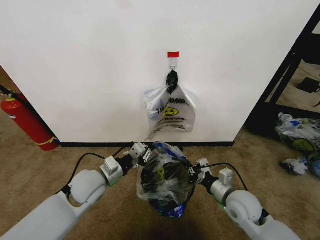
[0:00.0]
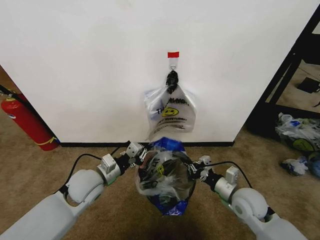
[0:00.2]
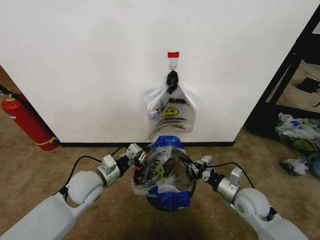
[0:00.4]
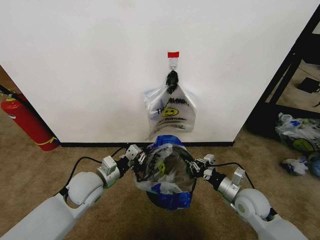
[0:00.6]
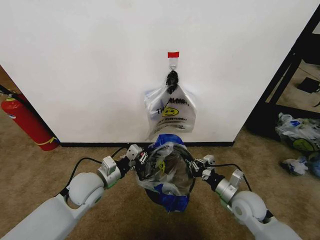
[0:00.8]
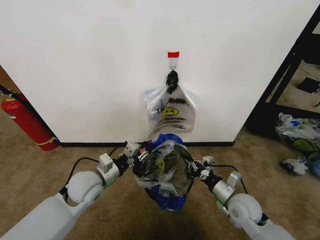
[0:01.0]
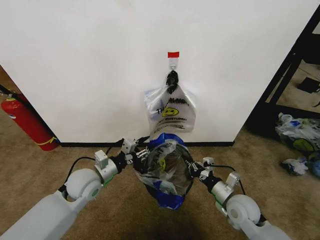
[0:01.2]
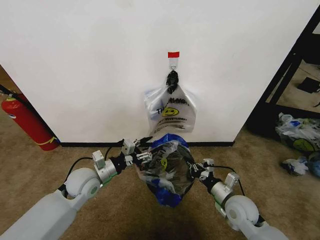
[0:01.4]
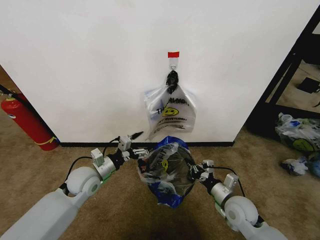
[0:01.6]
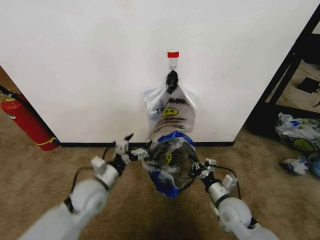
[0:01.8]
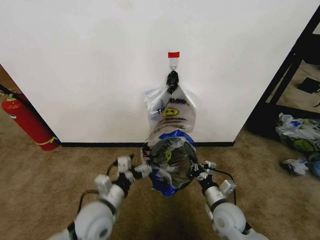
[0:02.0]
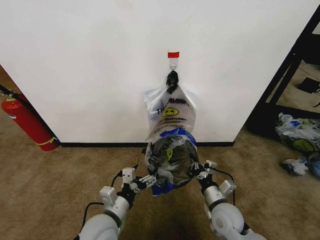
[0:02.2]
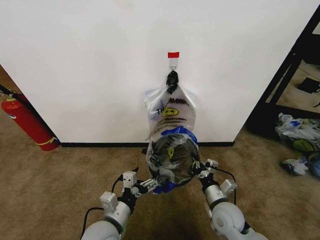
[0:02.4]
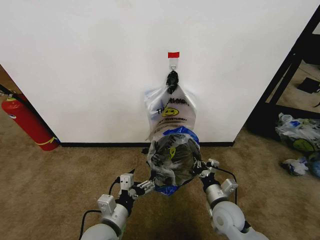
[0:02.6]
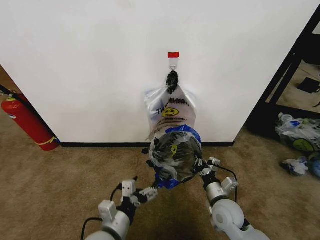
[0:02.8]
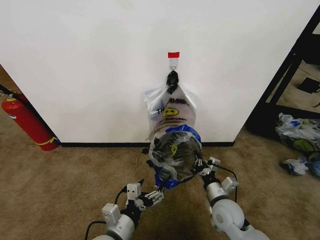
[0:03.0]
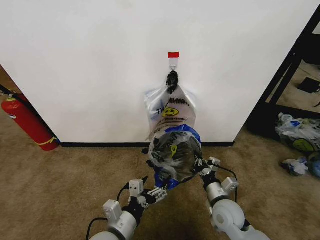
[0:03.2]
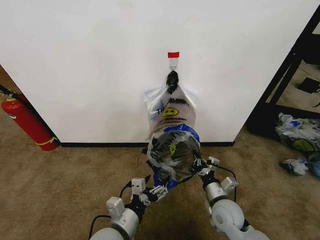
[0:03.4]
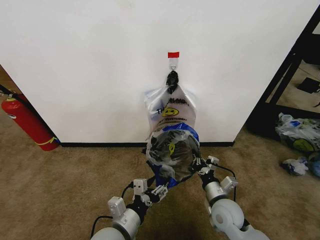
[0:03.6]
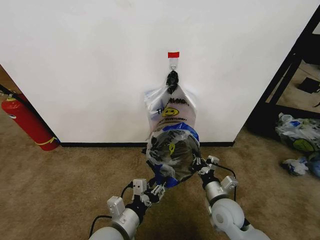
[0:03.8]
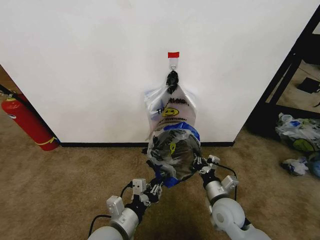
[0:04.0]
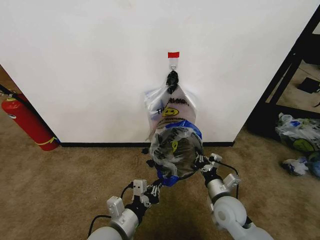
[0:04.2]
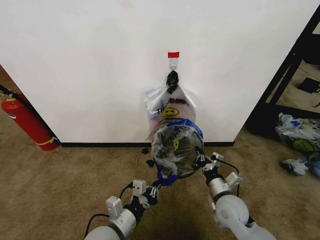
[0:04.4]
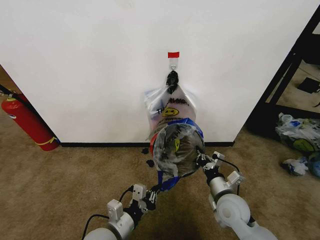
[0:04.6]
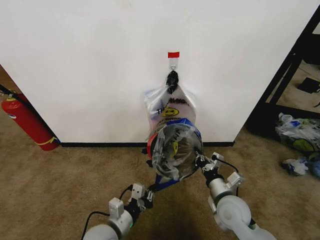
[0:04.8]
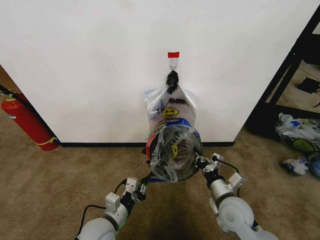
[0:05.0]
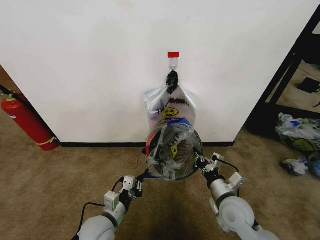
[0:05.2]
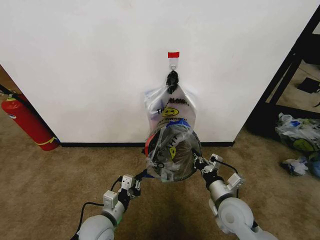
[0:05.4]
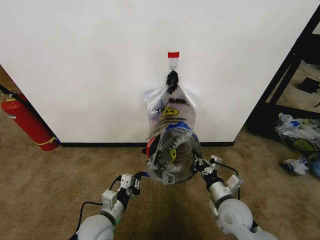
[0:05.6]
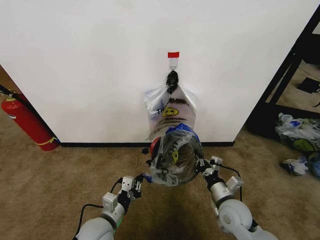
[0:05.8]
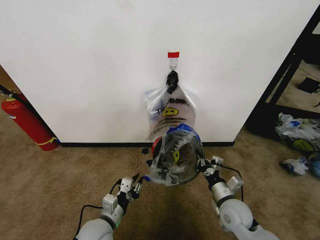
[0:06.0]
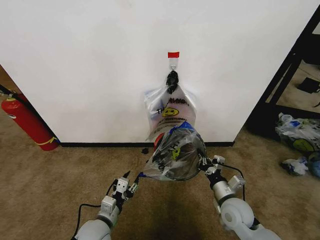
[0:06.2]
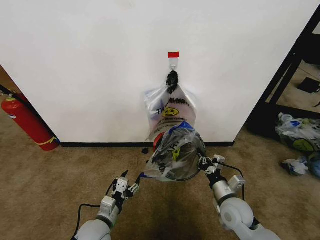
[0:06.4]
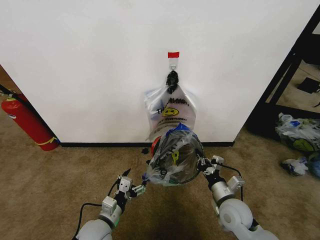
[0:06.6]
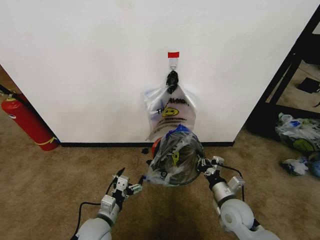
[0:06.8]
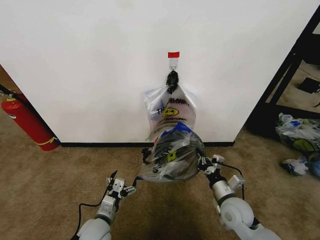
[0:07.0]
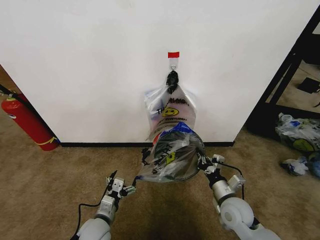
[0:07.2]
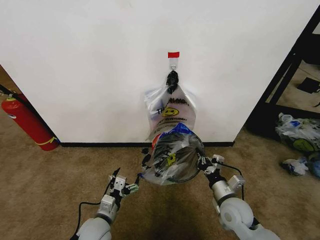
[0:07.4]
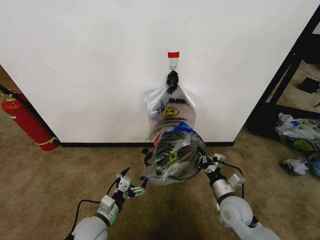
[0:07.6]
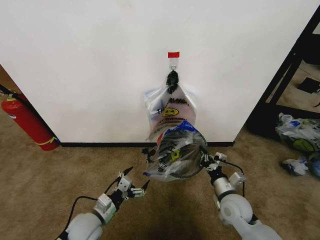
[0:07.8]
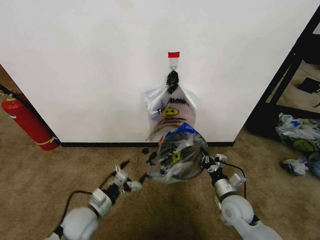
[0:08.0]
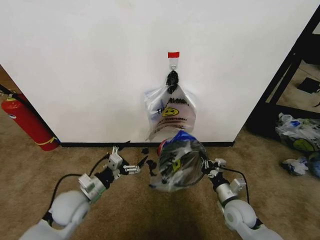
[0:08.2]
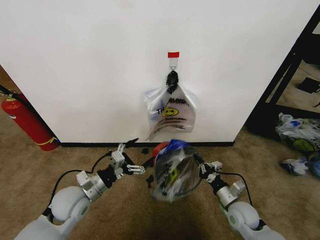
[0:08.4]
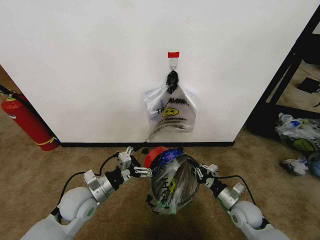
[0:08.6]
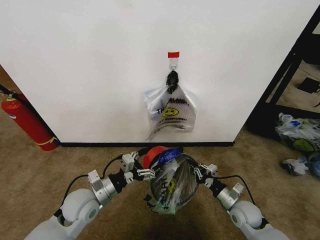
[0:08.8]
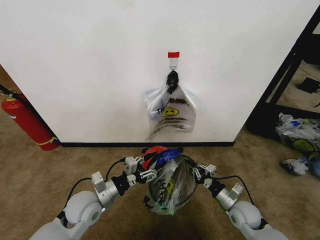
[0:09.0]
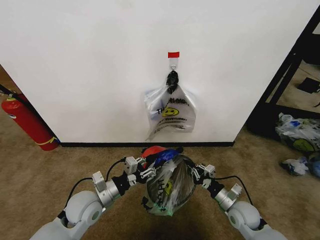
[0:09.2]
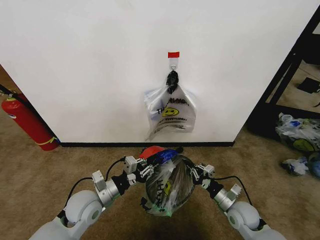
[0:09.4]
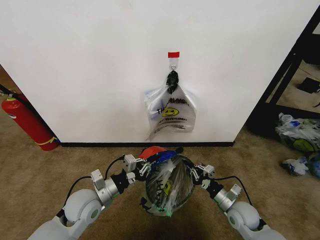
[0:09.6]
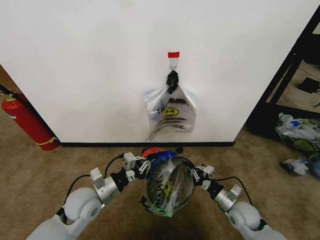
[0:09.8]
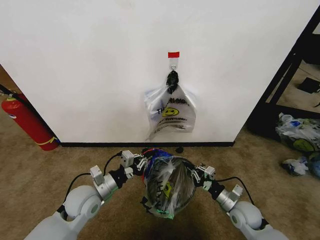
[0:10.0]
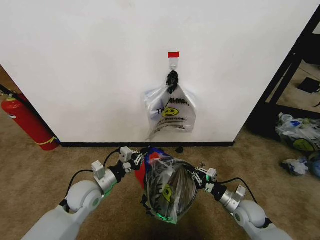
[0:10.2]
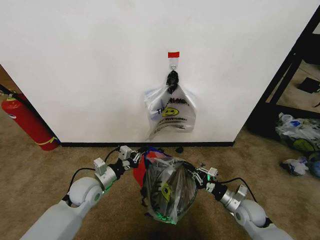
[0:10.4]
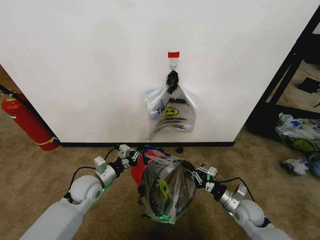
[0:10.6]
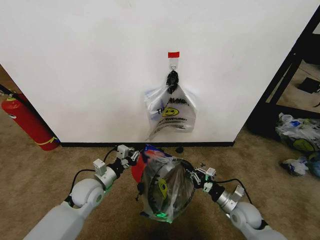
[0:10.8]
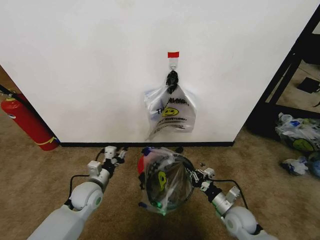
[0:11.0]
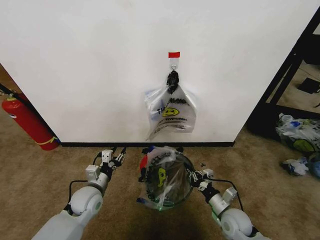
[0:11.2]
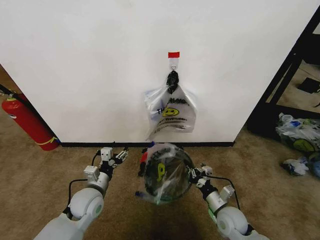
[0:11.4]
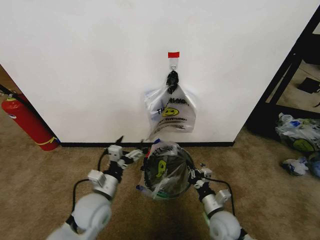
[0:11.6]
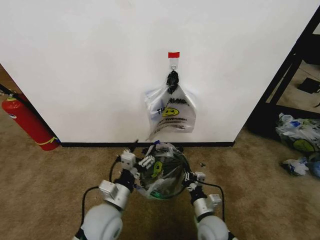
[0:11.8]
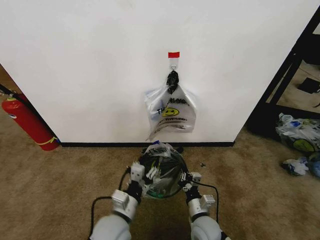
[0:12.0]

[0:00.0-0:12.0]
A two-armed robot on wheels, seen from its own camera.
Task of the whole recording: Pick up the garbage bag from the wall and place it over the trash bin.
0:00.0 to 0:01.6: The left gripper shifts by approximately 5 cm, and opens its fingers.
0:01.6 to 0:03.0: The left gripper travels backward and to the right by some 20 cm.
0:03.0 to 0:04.4: The left gripper closes.
0:04.4 to 0:06.0: The left gripper travels downward by roughly 5 cm.
0:06.0 to 0:07.6: The left gripper opens its fingers.
0:07.6 to 0:09.0: The left gripper heads upward, covering roughly 10 cm, and closes up. The right gripper heads downward and to the right, covering some 10 cm.
0:09.0 to 0:10.4: The left gripper heads forward, covering approximately 5 cm, and closes up.
0:10.4 to 0:12.0: The left gripper shifts roughly 20 cm backward and to the right, and opens its fingers, while the right gripper moves to the left, about 15 cm.

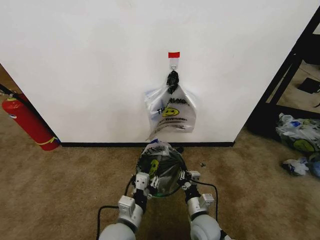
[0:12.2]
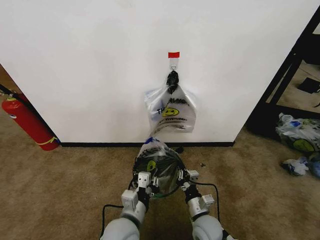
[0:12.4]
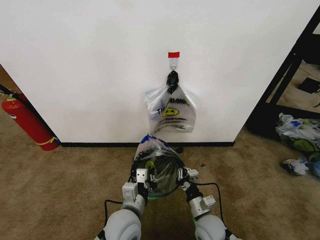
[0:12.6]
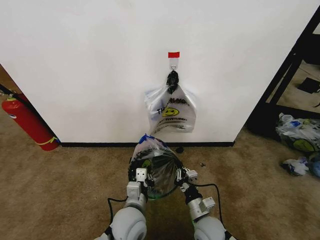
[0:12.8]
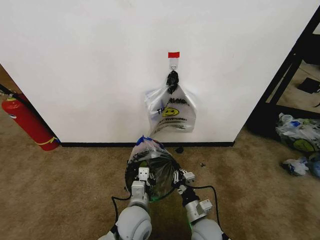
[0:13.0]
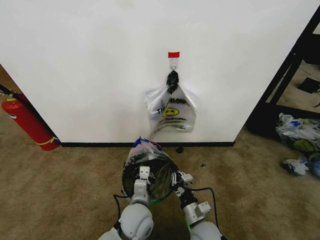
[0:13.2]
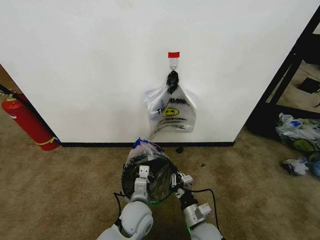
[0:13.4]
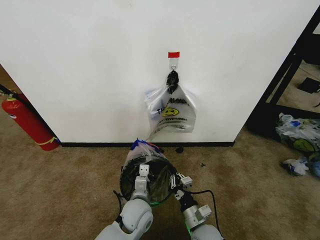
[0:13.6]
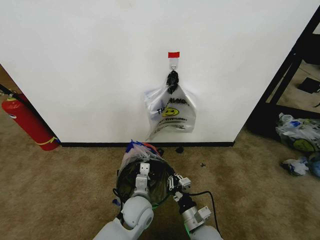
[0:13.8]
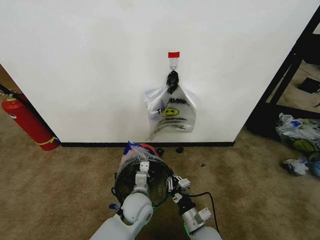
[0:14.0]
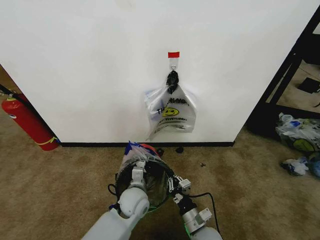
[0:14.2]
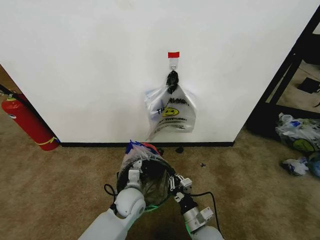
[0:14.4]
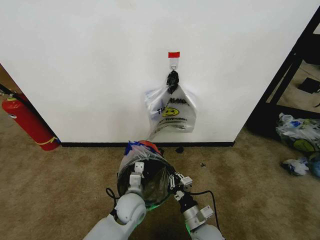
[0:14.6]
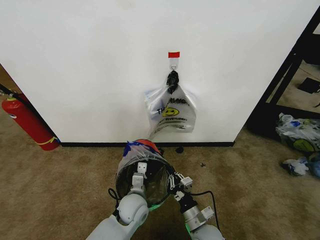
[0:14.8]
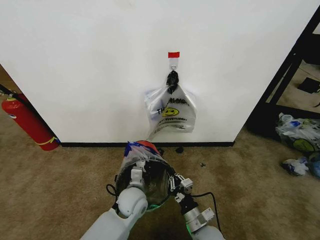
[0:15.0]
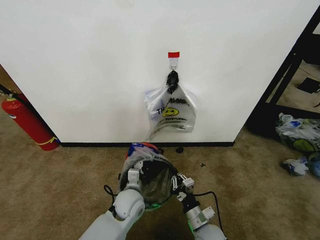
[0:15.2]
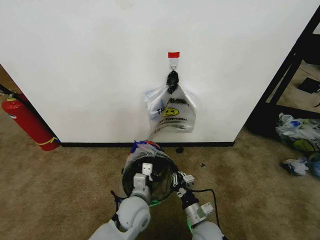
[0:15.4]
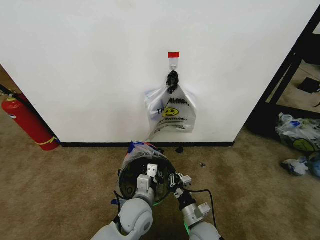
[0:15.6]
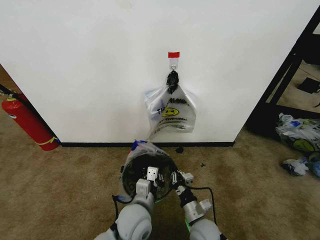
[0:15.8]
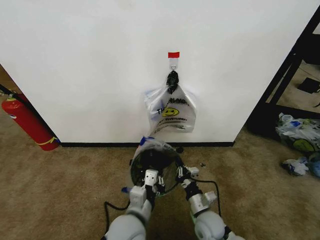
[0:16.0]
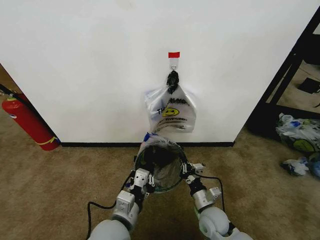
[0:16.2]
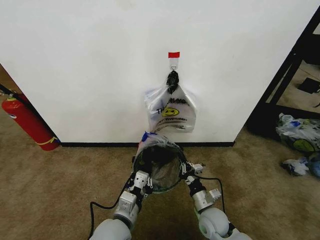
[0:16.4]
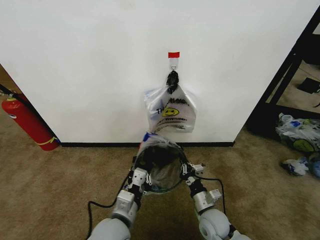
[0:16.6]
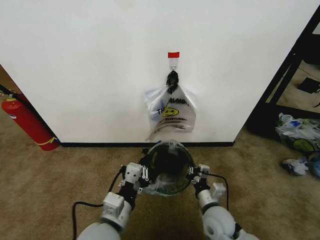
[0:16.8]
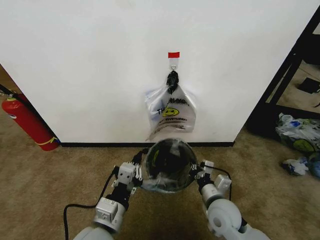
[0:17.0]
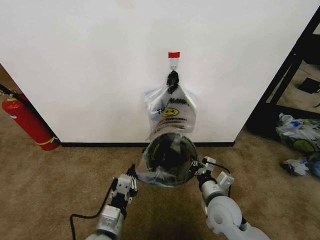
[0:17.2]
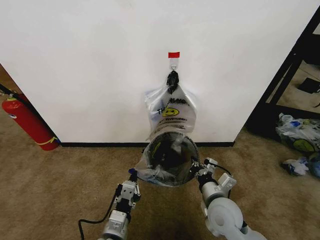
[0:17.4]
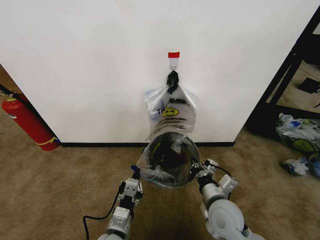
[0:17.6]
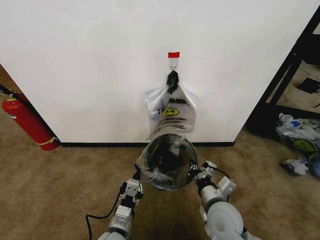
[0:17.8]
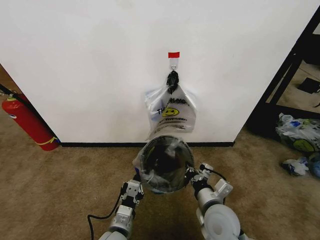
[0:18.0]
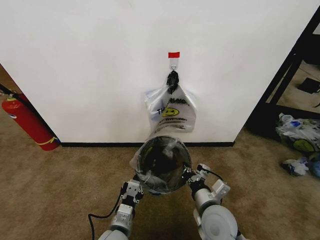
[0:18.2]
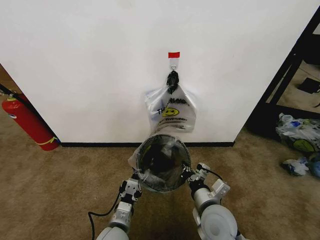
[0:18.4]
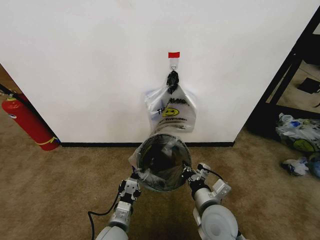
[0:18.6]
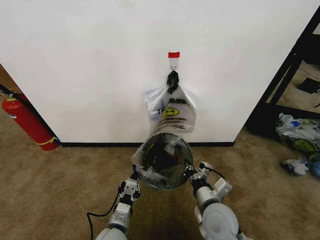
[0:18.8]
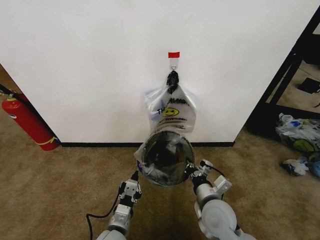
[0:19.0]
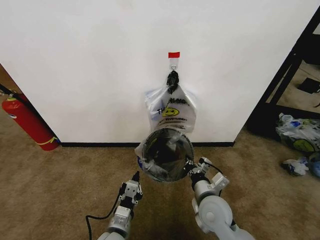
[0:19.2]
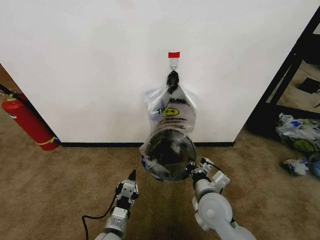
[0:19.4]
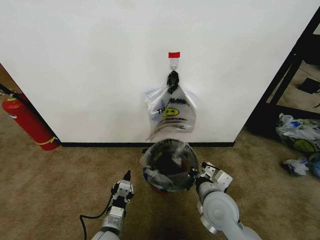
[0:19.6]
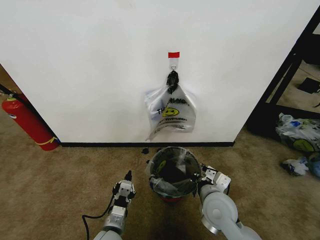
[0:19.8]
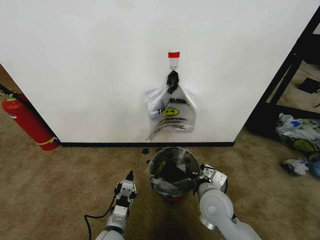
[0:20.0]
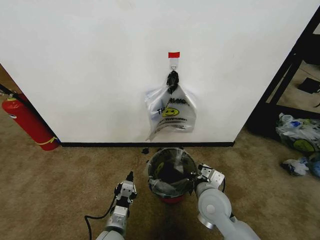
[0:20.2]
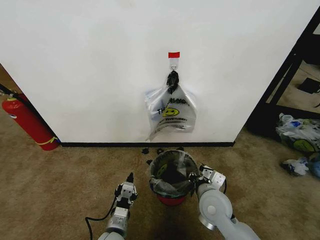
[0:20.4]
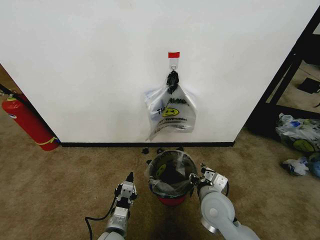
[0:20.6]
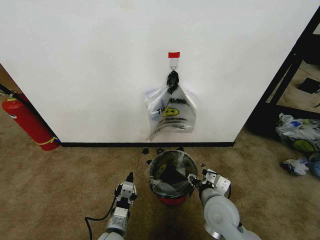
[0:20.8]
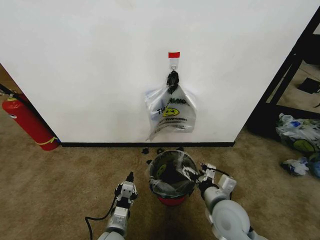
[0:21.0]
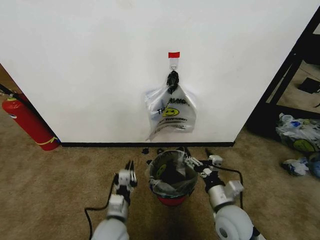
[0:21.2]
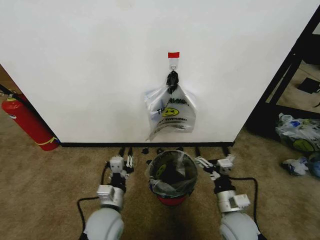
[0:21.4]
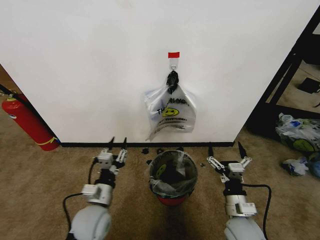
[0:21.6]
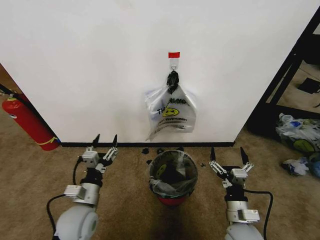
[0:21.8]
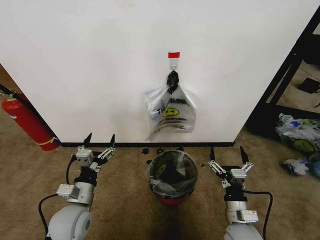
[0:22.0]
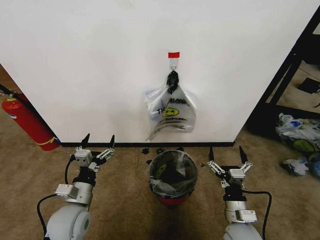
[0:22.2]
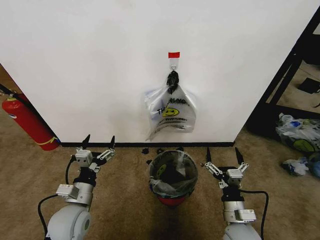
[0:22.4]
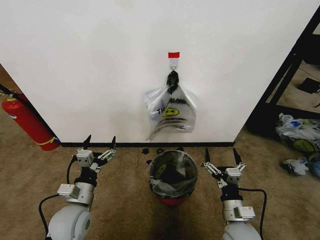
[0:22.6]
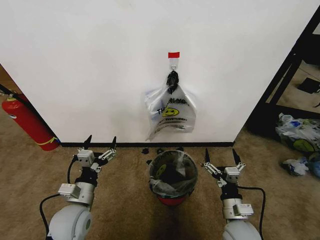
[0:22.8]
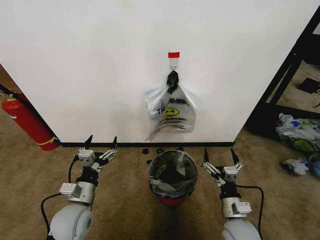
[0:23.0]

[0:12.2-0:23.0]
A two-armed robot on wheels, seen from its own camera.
Task of the whole recording: Pick up the garbage bag from the wall and place it over the trash bin.
0:12.2 to 0:13.8: The left gripper moves forward, approximately 10 cm.
0:13.8 to 0:15.2: The grippers make only small movements.
0:15.2 to 0:16.8: The left gripper shifts about 20 cm backward and upward, while the right gripper travels upward by roughly 5 cm.
0:16.8 to 0:18.4: The left gripper travels downward by roughly 15 cm. Meanwhile the right gripper heads upward, covering about 5 cm.
0:20.0 to 0:21.4: The right gripper shifts some 10 cm to the right and backward, and opens its fingers. The left gripper shifts roughly 5 cm upward.
0:21.4 to 0:23.0: The left gripper shifts approximately 10 cm to the left, and opens.
